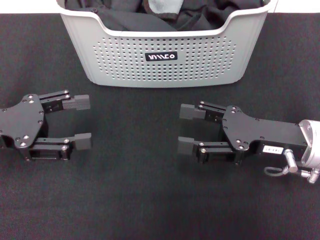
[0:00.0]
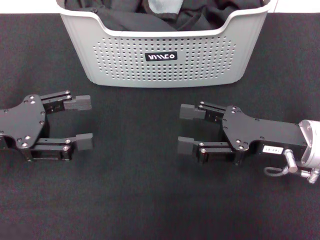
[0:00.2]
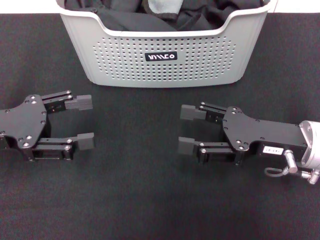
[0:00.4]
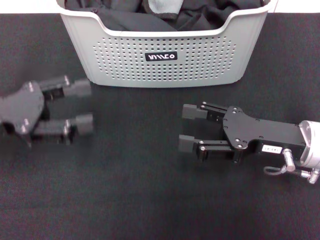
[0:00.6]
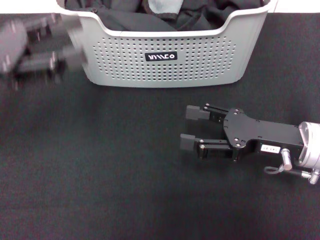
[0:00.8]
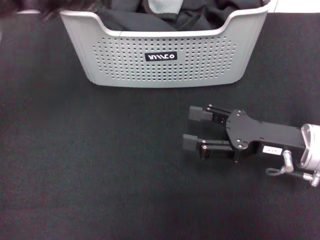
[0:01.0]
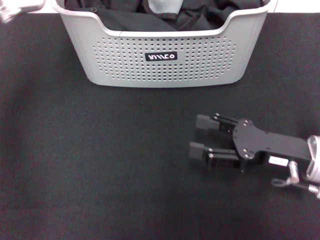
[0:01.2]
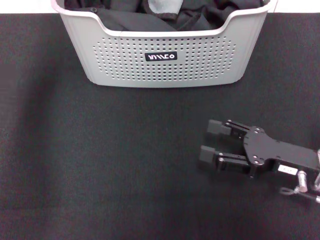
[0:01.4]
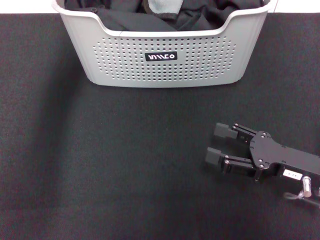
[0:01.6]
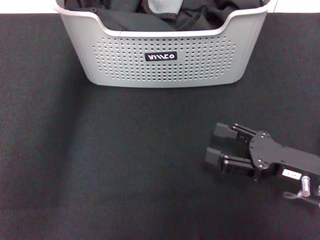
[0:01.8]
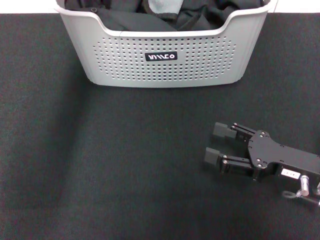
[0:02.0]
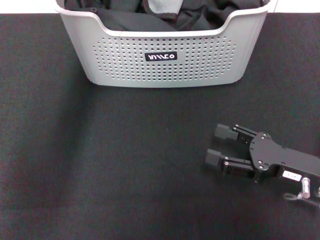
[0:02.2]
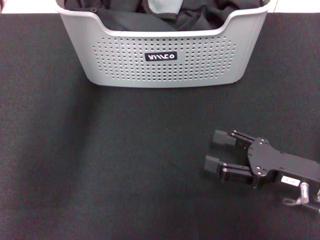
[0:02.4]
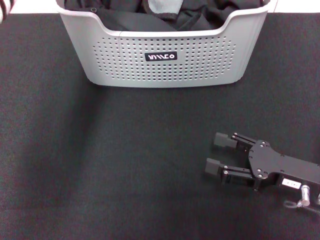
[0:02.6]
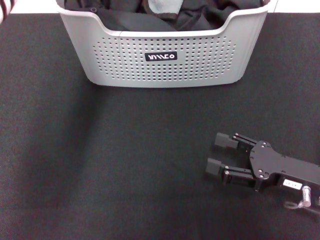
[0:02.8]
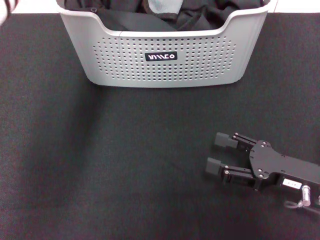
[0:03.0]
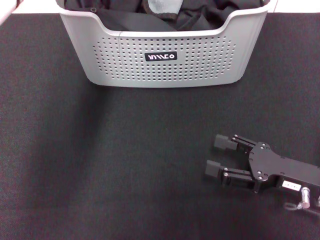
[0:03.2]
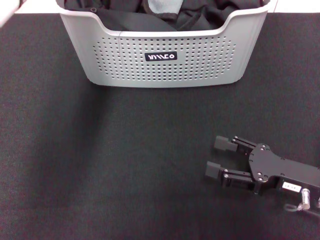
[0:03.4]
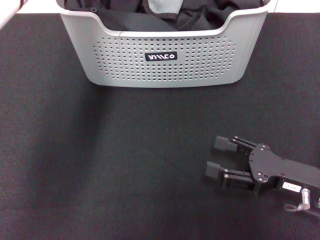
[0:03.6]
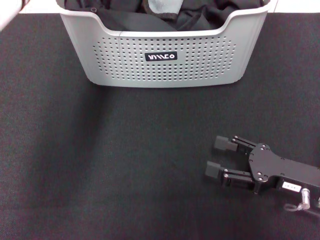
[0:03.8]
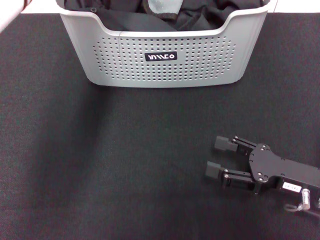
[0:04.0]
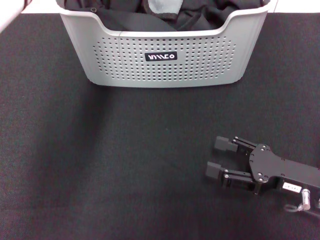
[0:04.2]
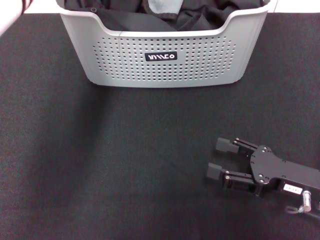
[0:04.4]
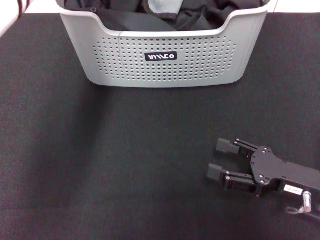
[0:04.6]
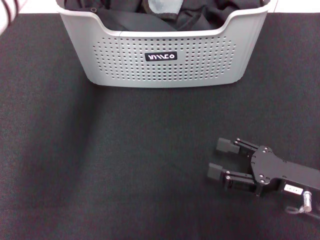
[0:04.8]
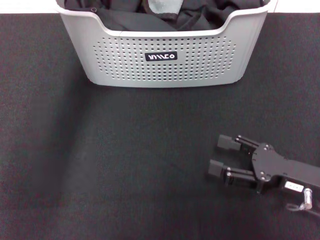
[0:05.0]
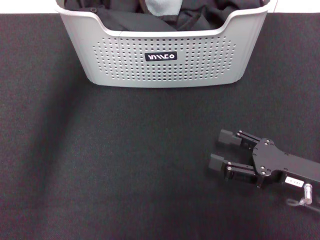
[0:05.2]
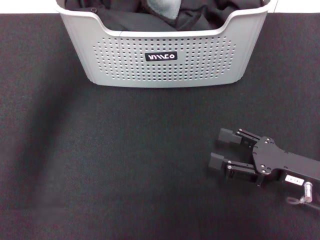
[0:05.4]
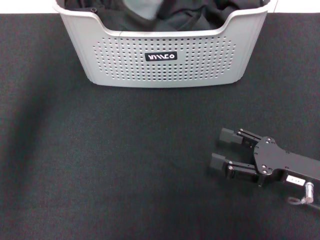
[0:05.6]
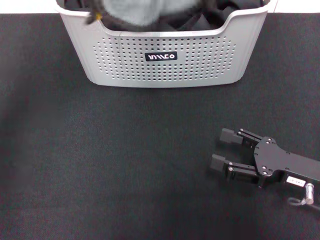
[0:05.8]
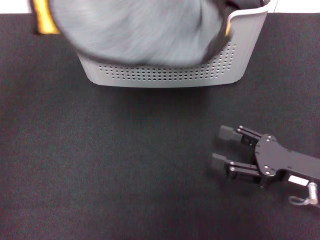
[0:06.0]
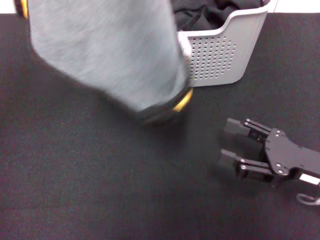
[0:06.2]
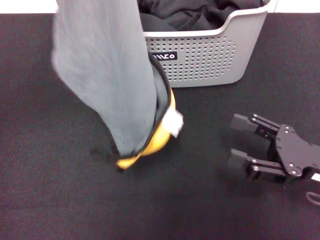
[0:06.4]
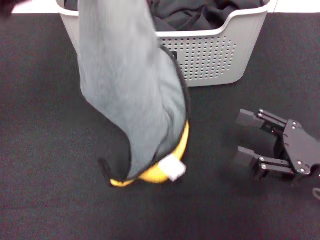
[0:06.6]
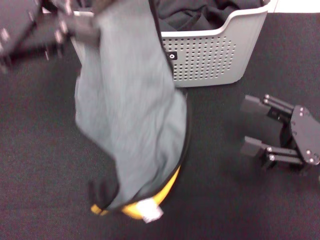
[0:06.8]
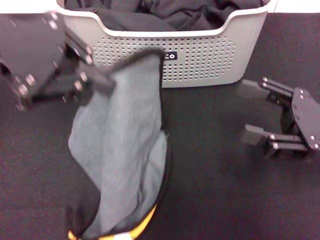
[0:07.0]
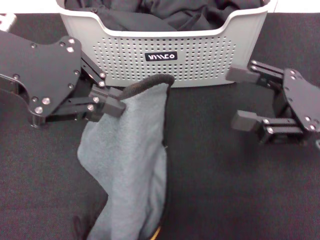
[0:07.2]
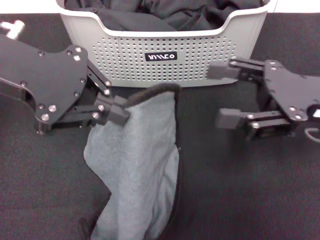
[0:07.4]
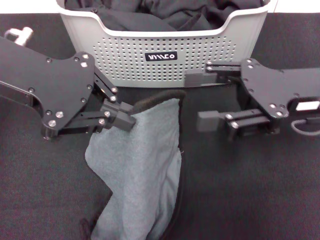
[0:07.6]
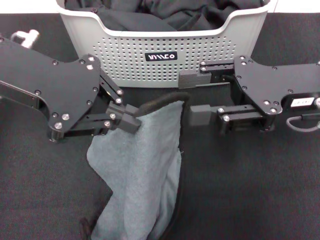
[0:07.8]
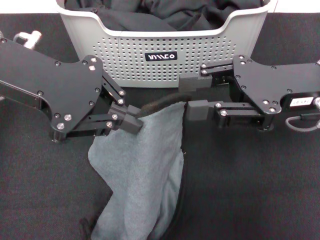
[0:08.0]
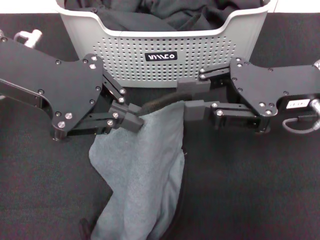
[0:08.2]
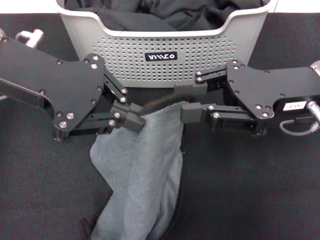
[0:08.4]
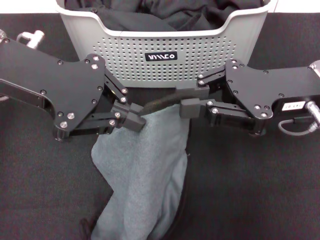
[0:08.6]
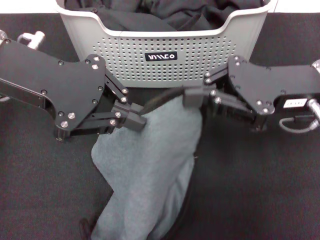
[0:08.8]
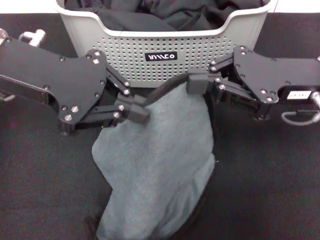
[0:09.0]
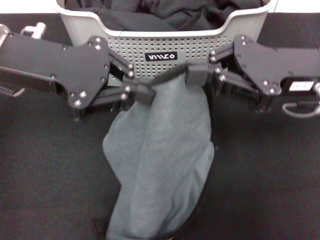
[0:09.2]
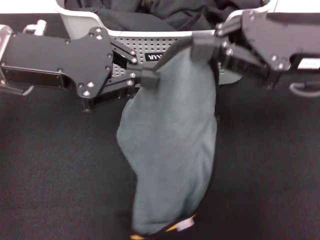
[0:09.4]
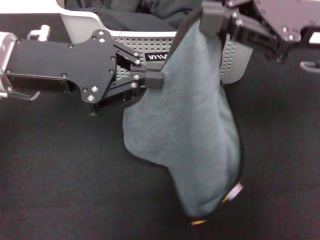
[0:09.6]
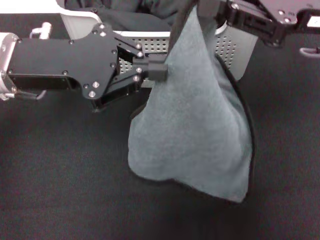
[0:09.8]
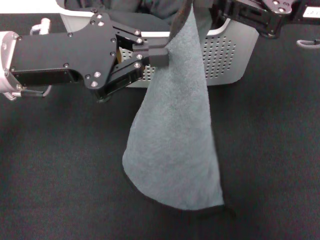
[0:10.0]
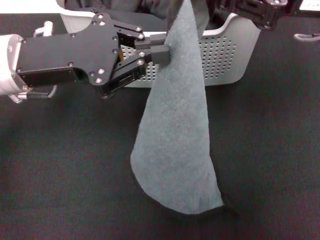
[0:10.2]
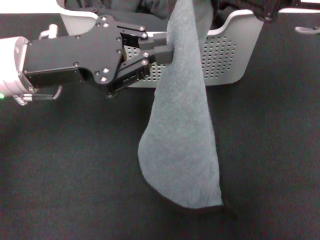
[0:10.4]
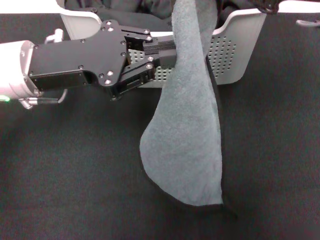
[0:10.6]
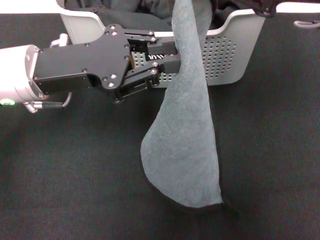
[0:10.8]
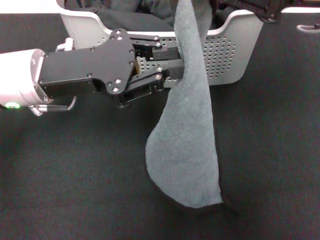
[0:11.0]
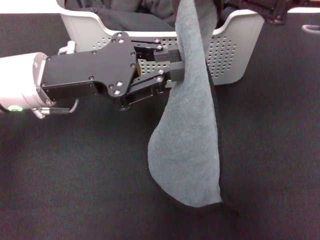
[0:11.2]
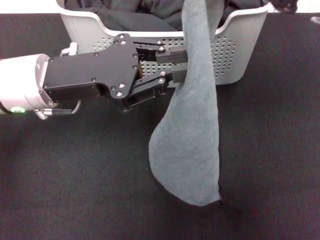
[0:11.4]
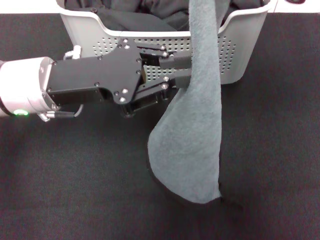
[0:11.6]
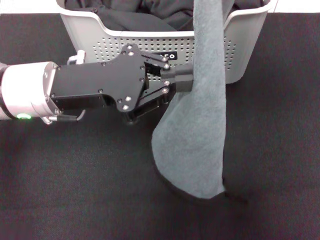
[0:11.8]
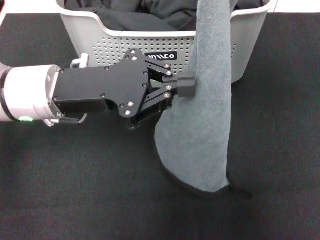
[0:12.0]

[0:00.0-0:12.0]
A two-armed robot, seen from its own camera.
Task of the whole recording: pick up the towel from the storage box and lay it flat on the black tablecloth.
Step, 0:00.0 to 0:05.2: Pick up a towel with the left gripper.
Step, 0:05.4 to 0:08.6: Spread the towel flat with the left gripper.
0:00.0 to 0:01.6: The right gripper ends up approximately 5 cm from where it was. The left gripper is displaced forward, to the right and upward by roughly 30 cm.
0:01.6 to 0:03.0: The left gripper is displaced to the right by approximately 5 cm.
0:03.0 to 0:04.4: There are only small adjustments of the grippers.
0:04.4 to 0:06.0: The left gripper moves backward, to the left and upward, about 30 cm.
0:06.0 to 0:07.6: The right gripper travels upward and forward by about 15 cm. Meanwhile the left gripper goes roughly 10 cm downward.
0:07.6 to 0:09.0: The right gripper closes its fingers.
0:09.0 to 0:10.4: The right gripper goes approximately 10 cm upward. Meanwhile the left gripper heads downward, covering approximately 5 cm.

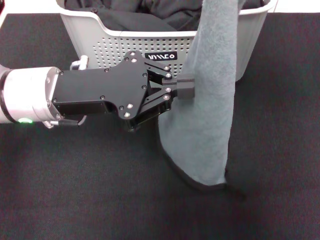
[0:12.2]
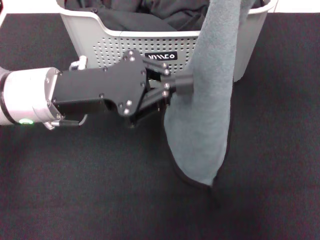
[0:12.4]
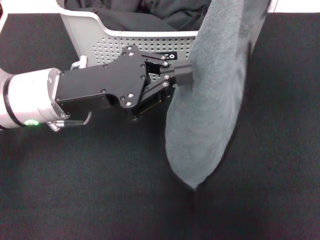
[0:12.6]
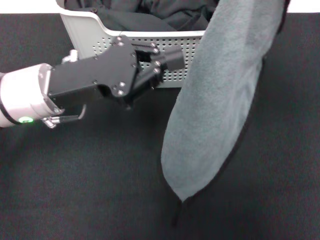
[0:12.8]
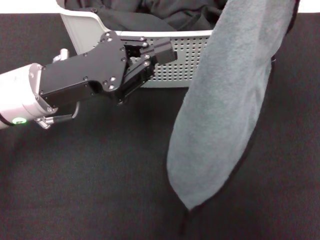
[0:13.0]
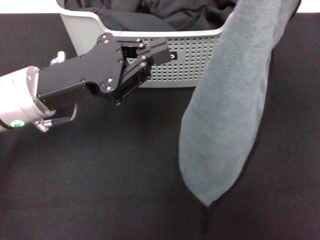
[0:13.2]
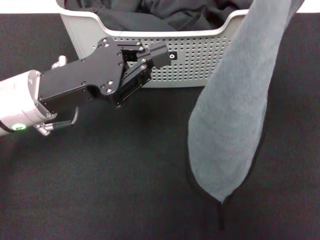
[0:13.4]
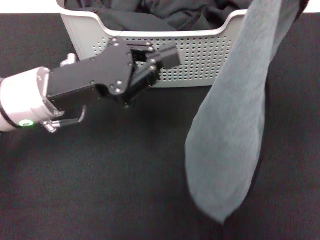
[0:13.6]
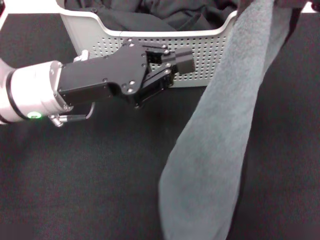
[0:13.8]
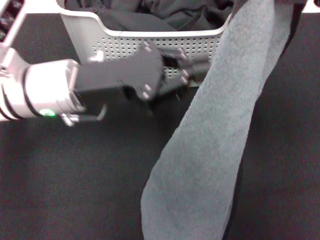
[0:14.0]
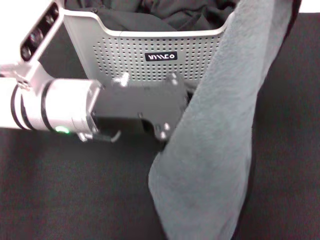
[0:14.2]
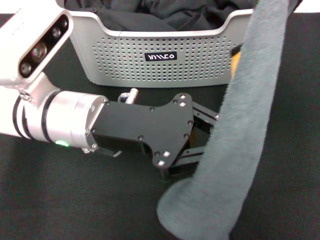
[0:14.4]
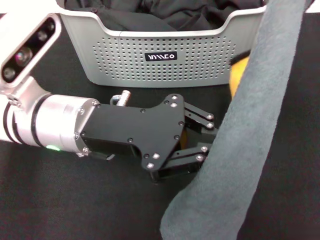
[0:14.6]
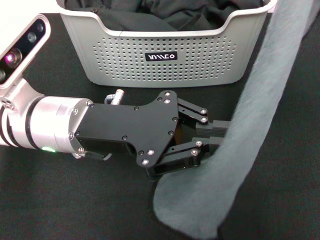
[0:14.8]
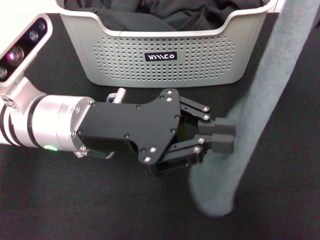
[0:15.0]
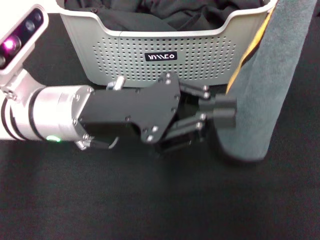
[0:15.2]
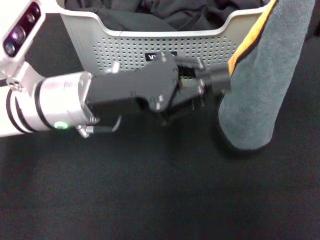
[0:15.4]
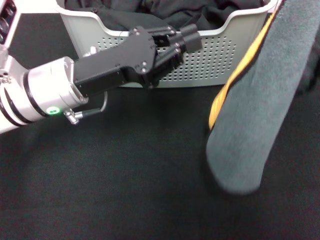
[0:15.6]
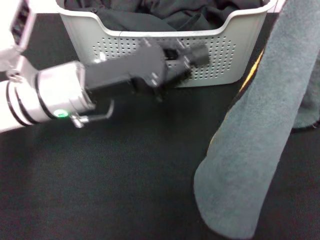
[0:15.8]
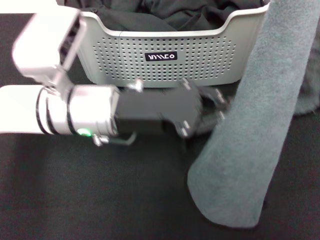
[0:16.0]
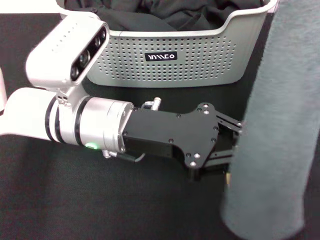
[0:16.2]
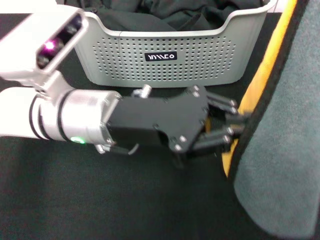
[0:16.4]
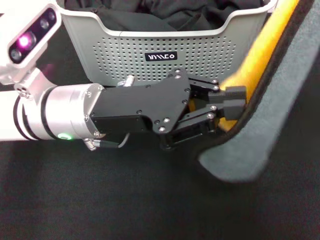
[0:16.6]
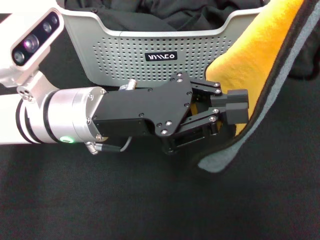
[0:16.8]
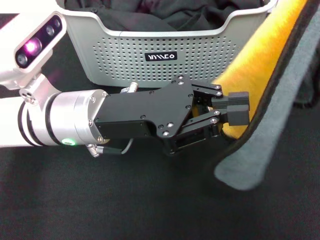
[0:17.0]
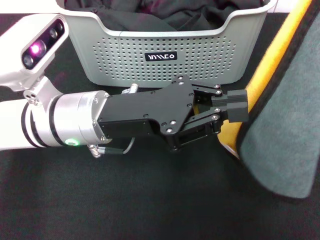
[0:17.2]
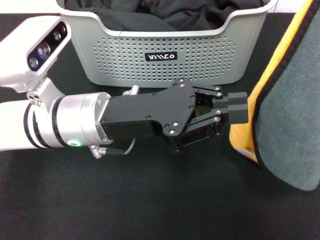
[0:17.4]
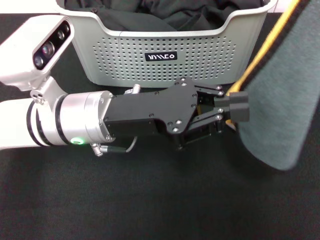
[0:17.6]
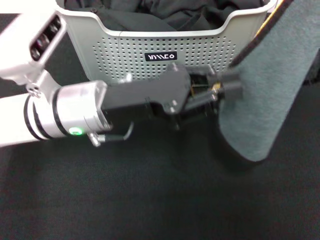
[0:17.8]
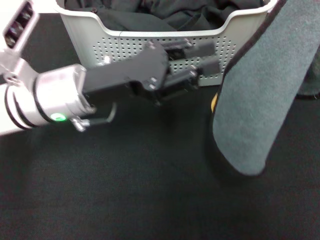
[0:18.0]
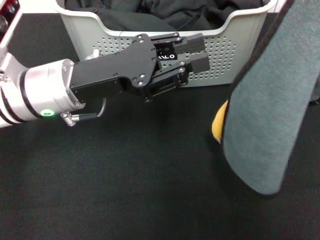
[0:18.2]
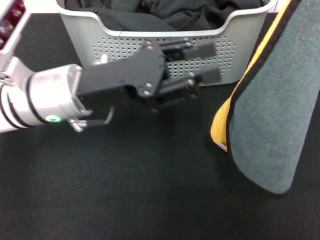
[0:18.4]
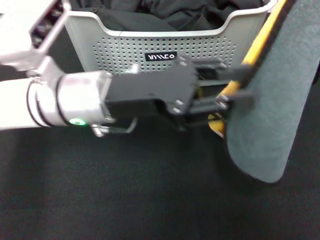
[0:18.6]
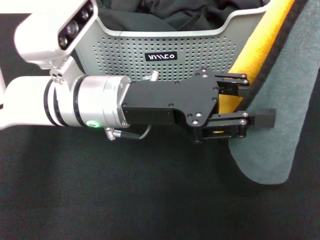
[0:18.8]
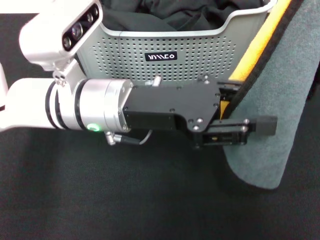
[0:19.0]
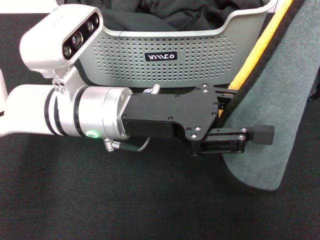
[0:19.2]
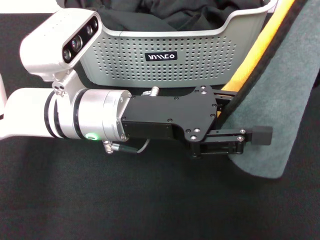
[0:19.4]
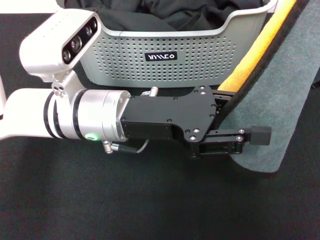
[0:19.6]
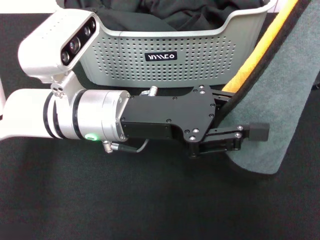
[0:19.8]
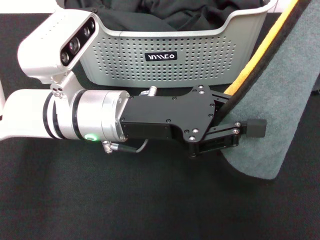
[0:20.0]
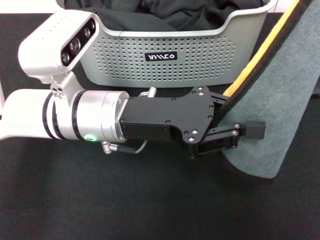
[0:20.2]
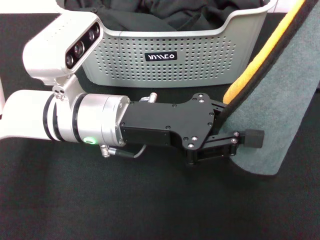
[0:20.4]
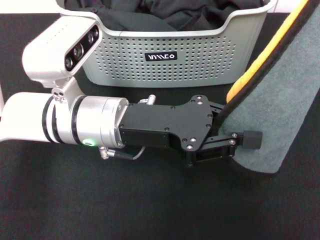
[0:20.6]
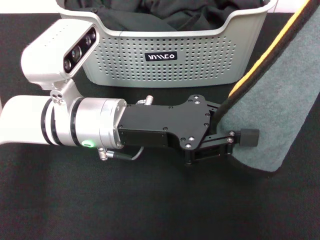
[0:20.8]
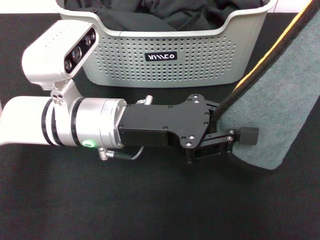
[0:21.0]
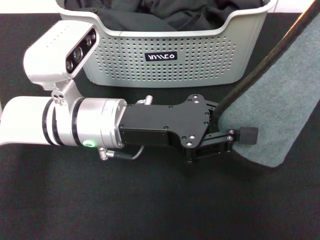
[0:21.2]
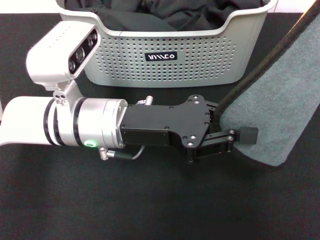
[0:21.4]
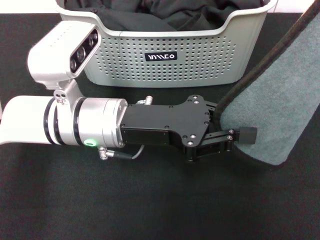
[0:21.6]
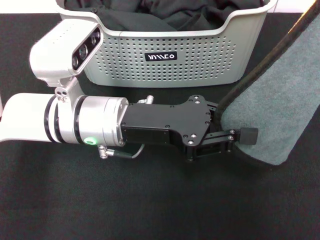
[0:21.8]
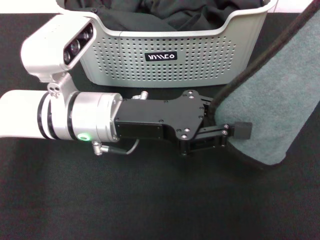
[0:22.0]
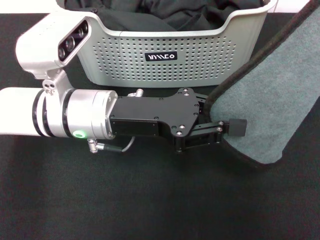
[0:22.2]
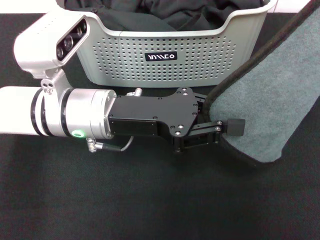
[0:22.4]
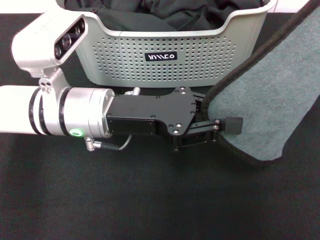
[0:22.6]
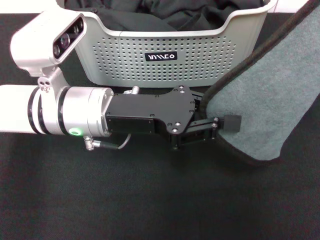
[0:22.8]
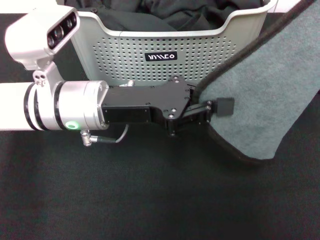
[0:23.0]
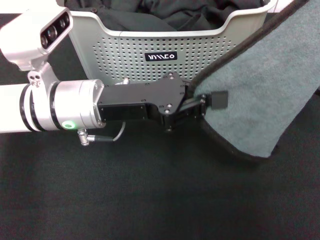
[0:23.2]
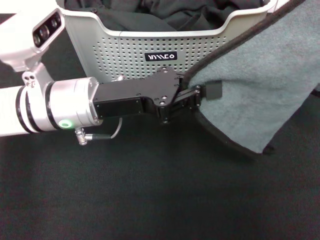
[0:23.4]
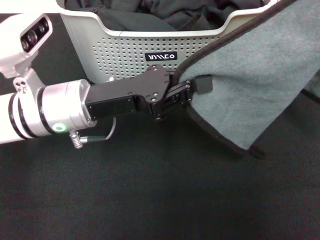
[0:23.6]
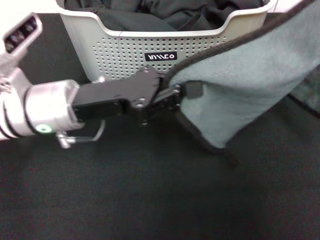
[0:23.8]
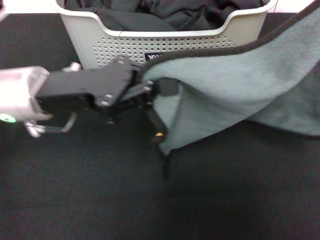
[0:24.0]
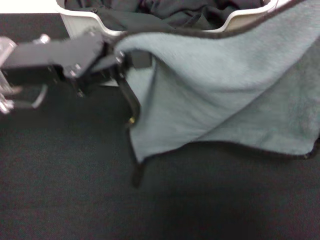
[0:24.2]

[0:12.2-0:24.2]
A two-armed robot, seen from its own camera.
Task of the whole recording: pick up the towel from the storage box and lay it flat on the black tablecloth.
0:12.2 to 0:13.8: The right gripper heads backward, covering about 5 cm.
0:13.8 to 0:15.2: The right gripper travels to the right by approximately 5 cm.
0:18.2 to 0:19.8: The left gripper goes some 5 cm to the right.
0:19.8 to 0:21.2: There are only small adjustments of the grippers.
0:22.6 to 0:24.2: The left gripper travels to the left and upward by approximately 10 cm. The right gripper travels downward by about 5 cm.
